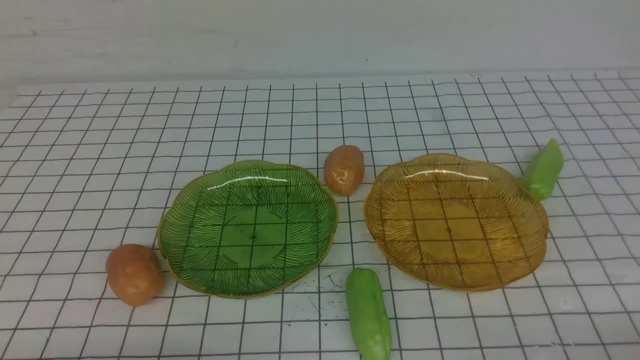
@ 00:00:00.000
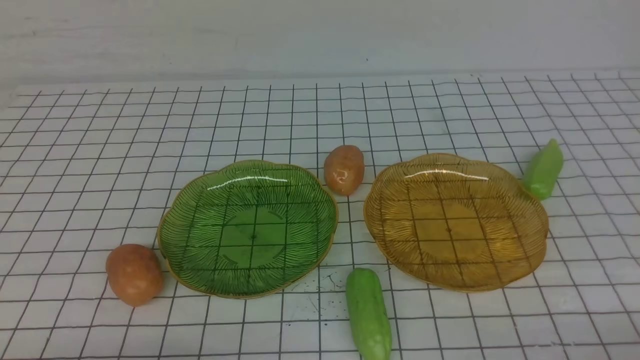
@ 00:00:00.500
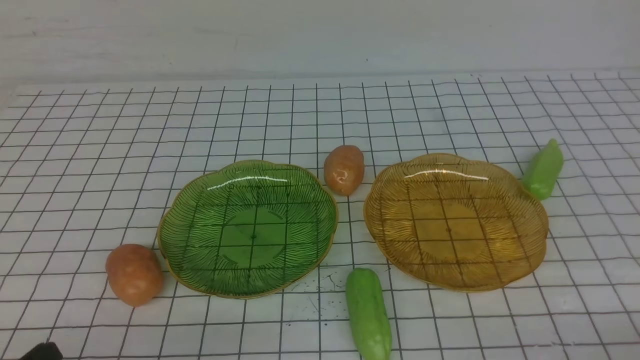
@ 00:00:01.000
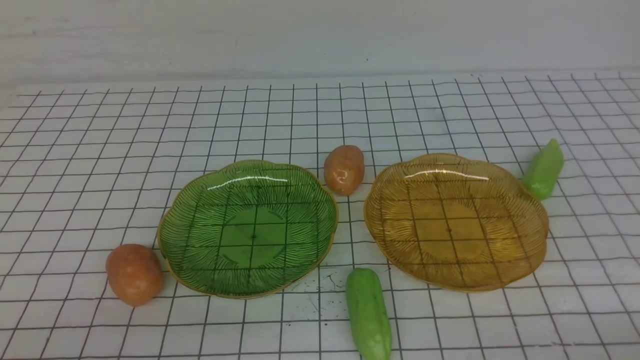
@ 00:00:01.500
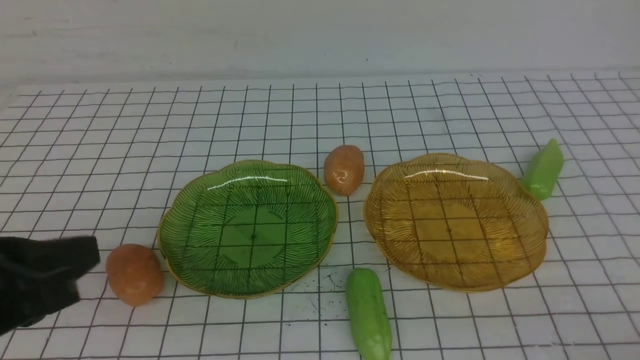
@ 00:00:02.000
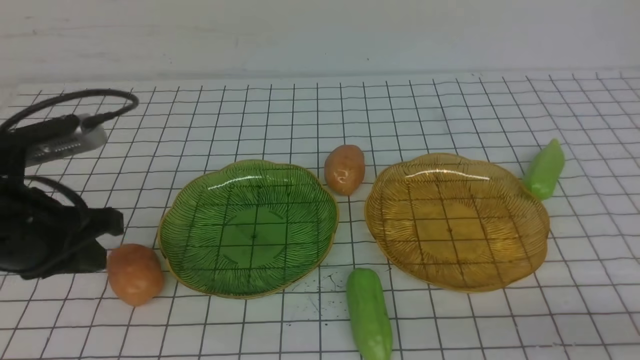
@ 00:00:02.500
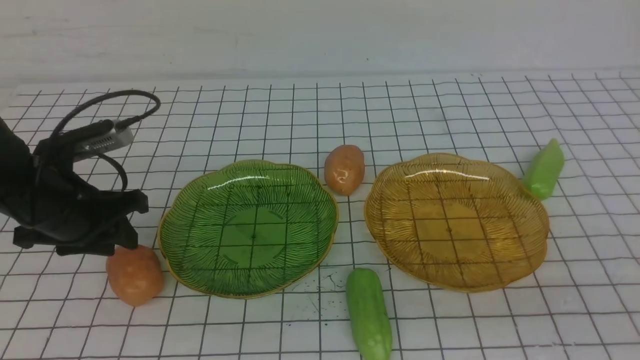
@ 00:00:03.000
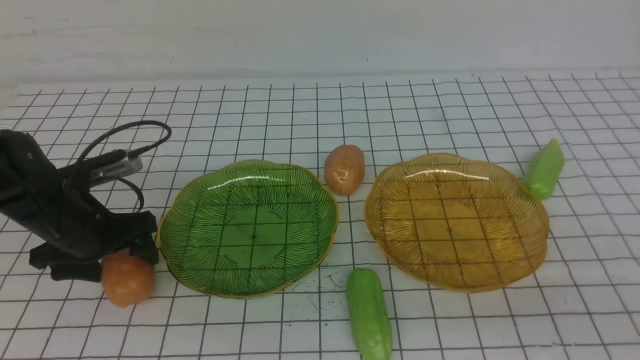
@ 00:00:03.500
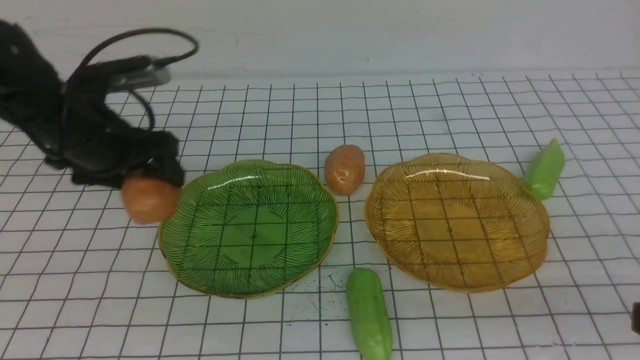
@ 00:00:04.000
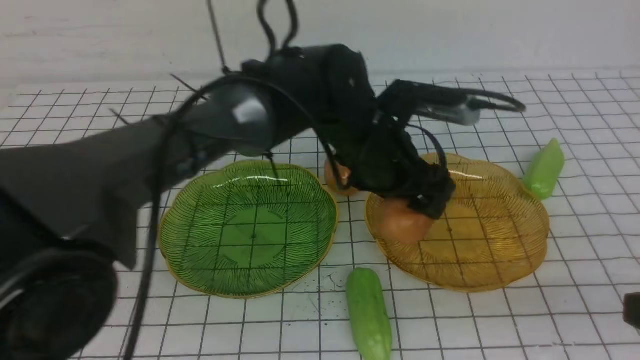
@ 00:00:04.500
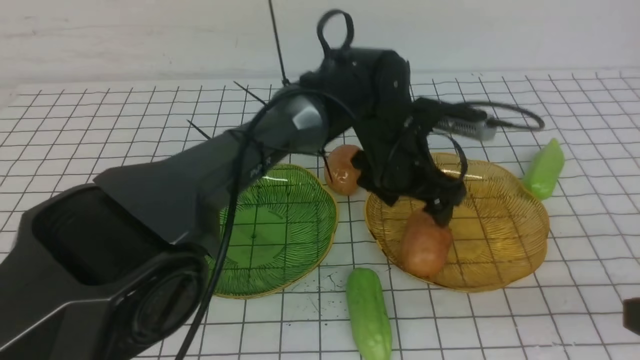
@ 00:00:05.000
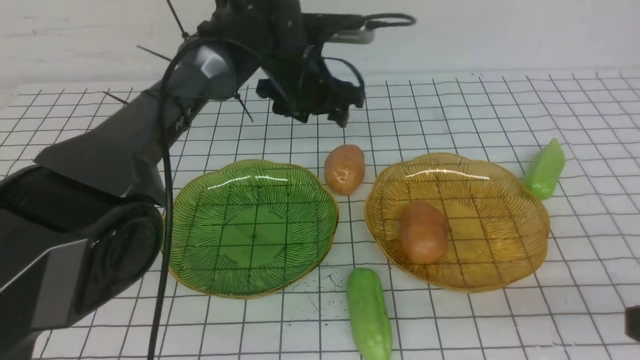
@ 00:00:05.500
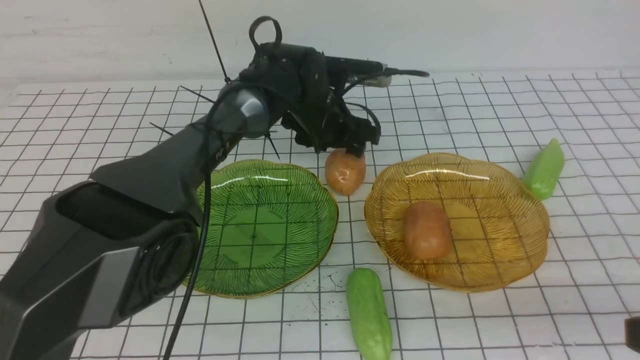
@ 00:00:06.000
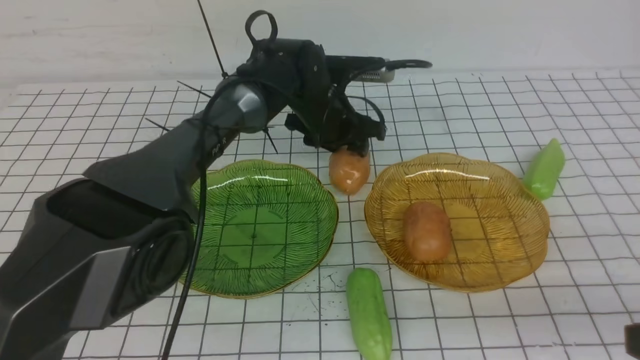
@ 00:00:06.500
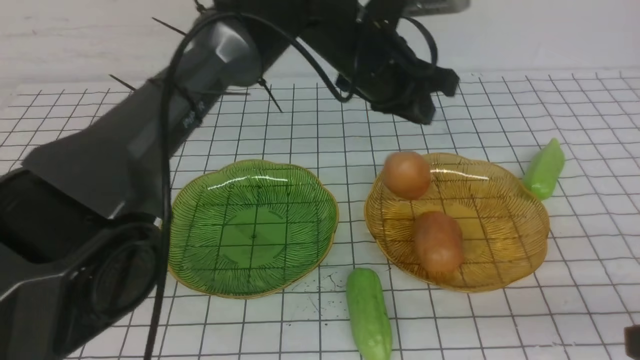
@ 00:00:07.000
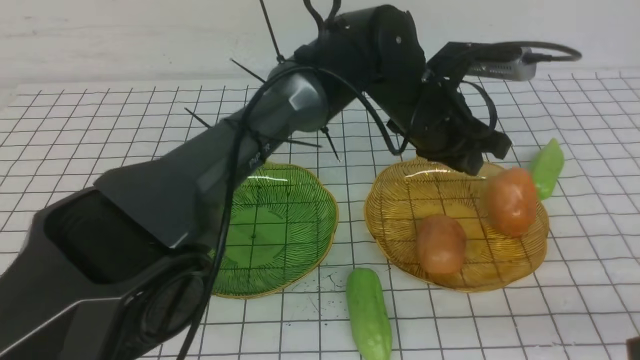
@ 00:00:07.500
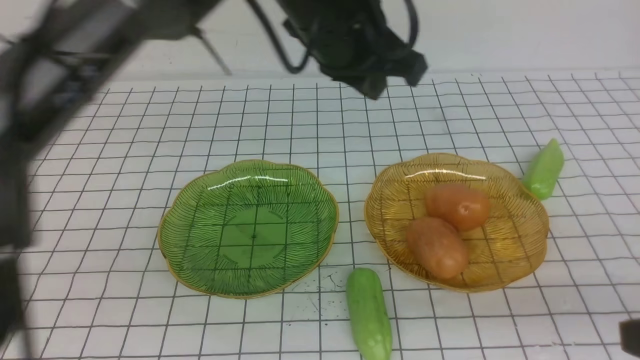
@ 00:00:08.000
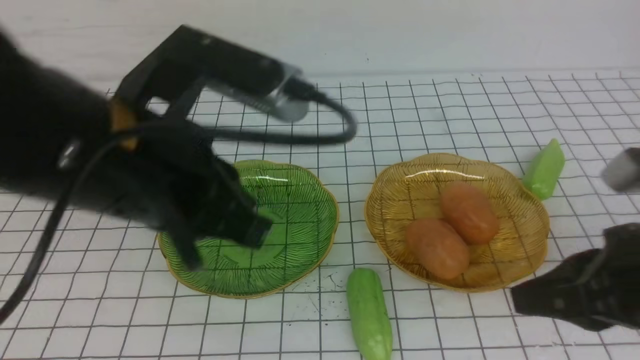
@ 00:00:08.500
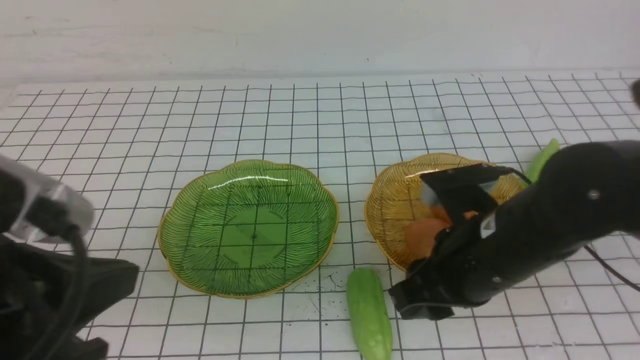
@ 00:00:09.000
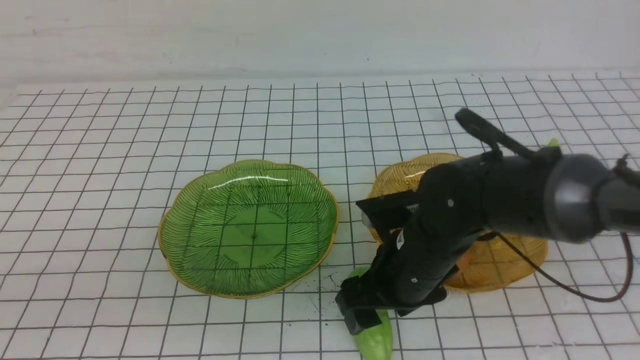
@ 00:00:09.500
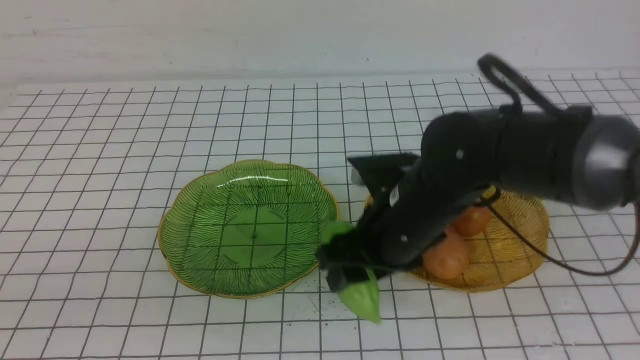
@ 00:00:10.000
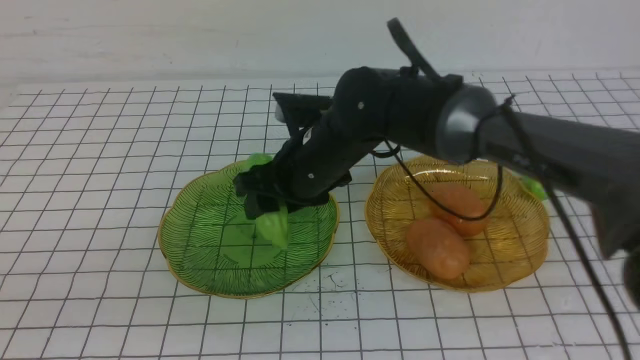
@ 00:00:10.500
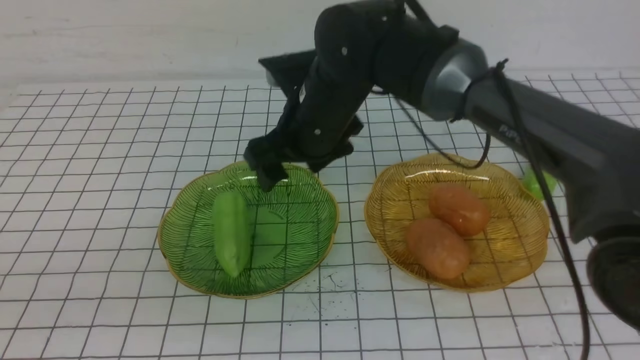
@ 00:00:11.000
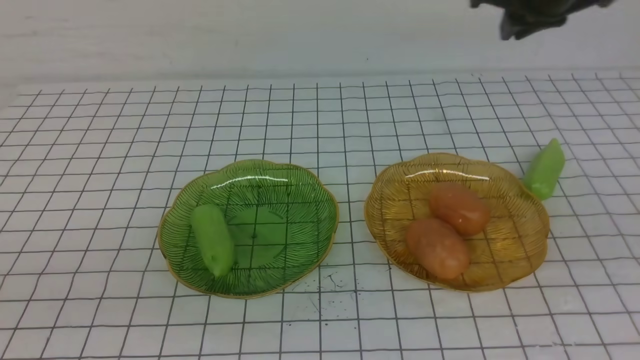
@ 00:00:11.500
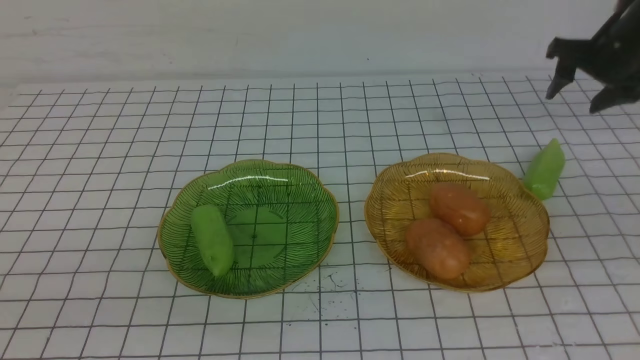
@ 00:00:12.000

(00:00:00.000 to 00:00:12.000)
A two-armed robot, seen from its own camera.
Step, 00:00:00.000 - 00:00:04.500: Grab a potato with your left arm and put it on the right plate.
Step, 00:00:05.500 - 00:00:07.000: Grab a potato with your left arm and put it on the right plate.
00:00:00.000 - 00:00:02.000: The left gripper heads upward and forward, covering about 15 cm.
00:00:02.000 - 00:00:04.000: The left gripper is displaced forward by approximately 25 cm, and opens up.
00:00:04.000 - 00:00:06.000: The left gripper shifts about 25 cm to the right and forward.
00:00:06.000 - 00:00:08.000: The left gripper is displaced upward and backward by approximately 25 cm, and closes up.
00:00:08.000 - 00:00:10.000: The right gripper goes roughly 30 cm to the left, forward and downward, and opens up; the left gripper heads backward and to the left, covering approximately 35 cm.
00:00:10.000 - 00:00:12.000: The right gripper is displaced to the right and forward by about 35 cm, and closes and opens again.

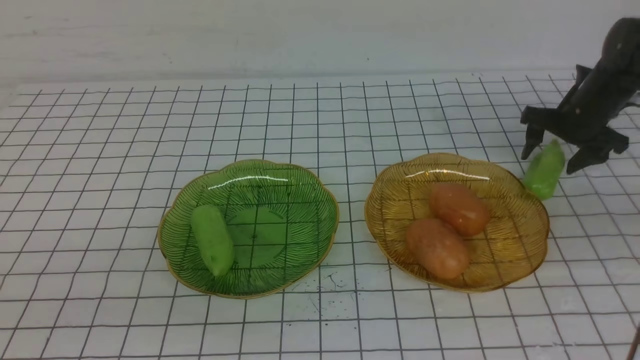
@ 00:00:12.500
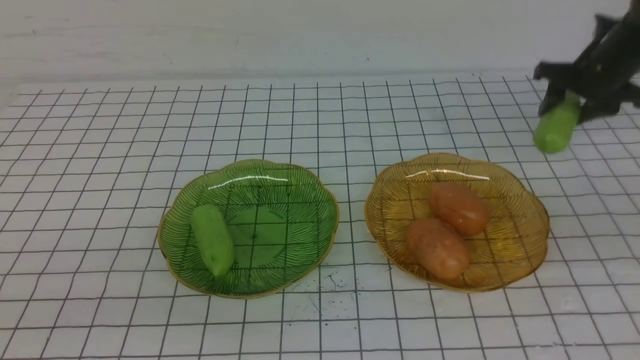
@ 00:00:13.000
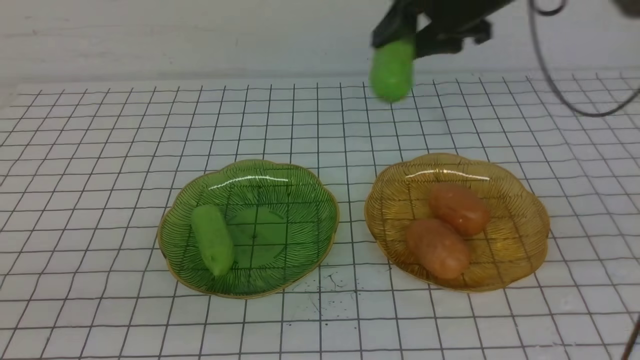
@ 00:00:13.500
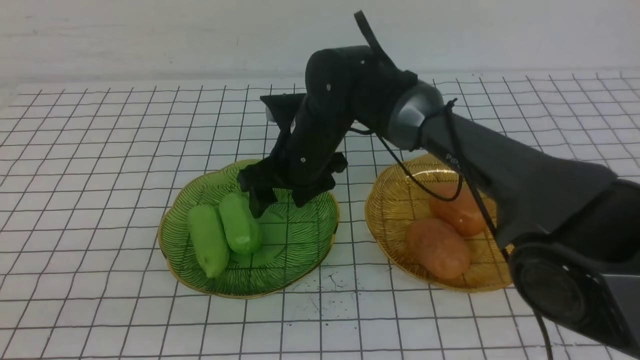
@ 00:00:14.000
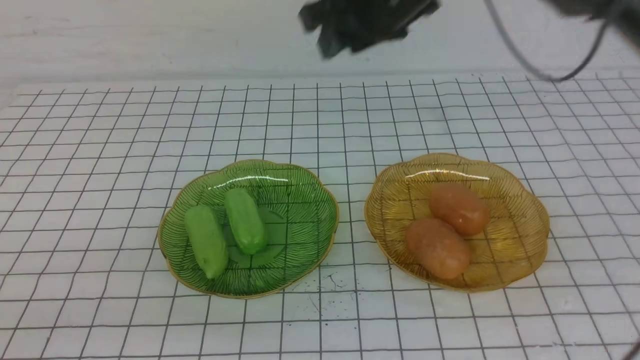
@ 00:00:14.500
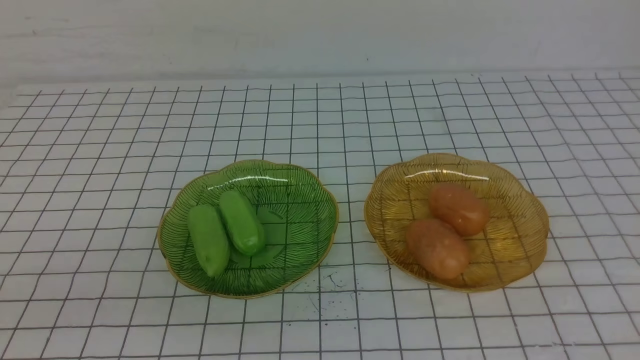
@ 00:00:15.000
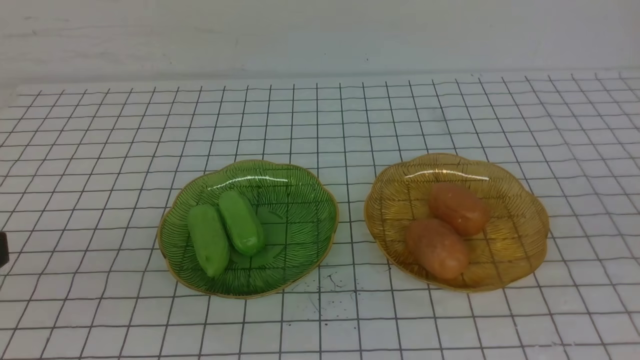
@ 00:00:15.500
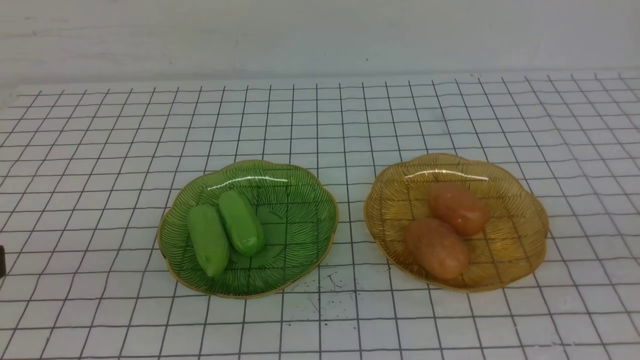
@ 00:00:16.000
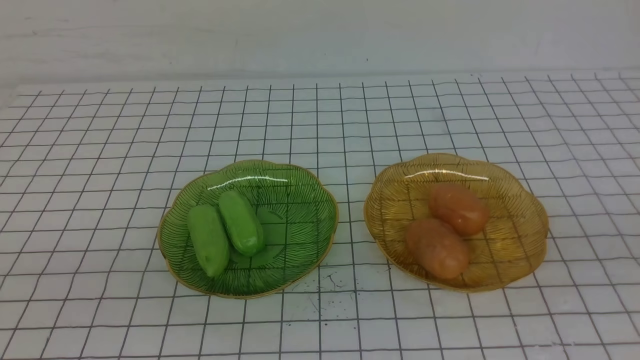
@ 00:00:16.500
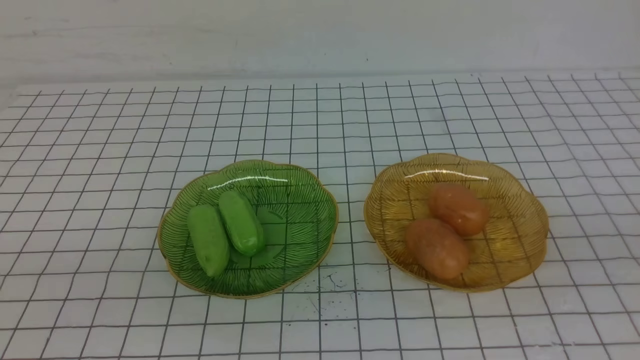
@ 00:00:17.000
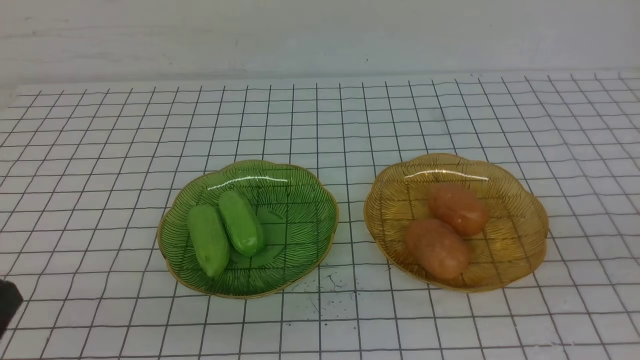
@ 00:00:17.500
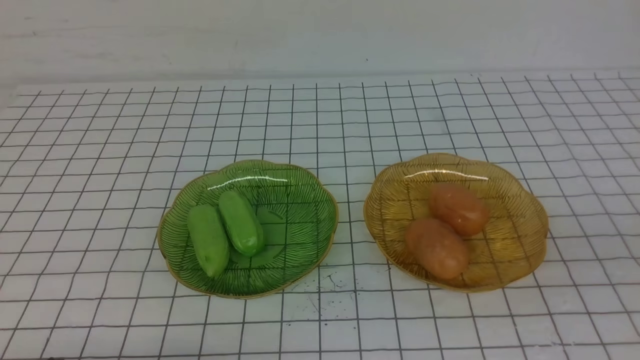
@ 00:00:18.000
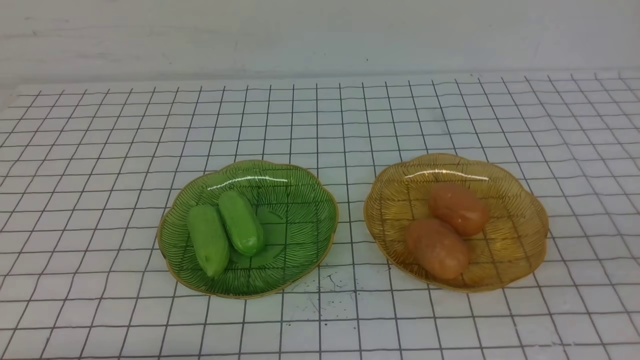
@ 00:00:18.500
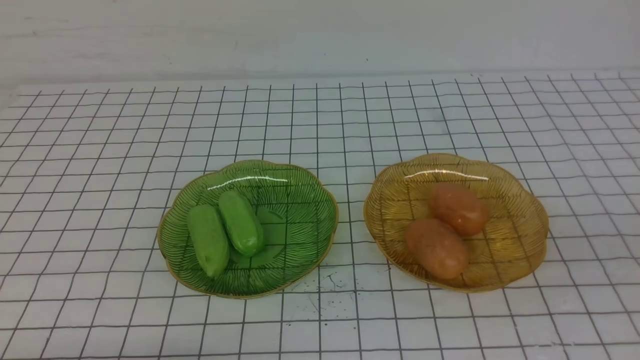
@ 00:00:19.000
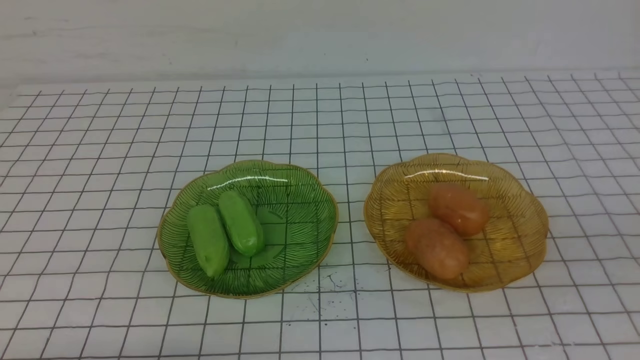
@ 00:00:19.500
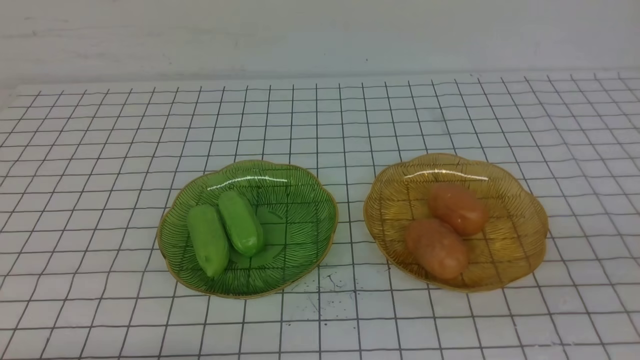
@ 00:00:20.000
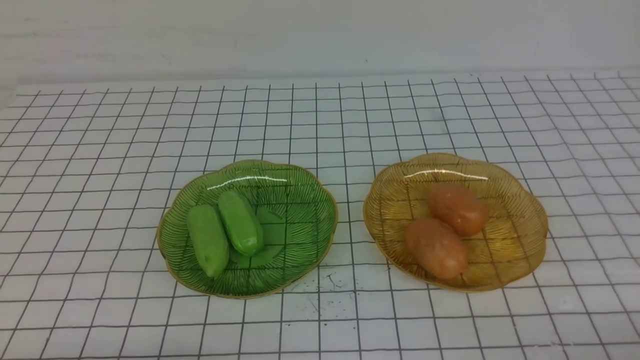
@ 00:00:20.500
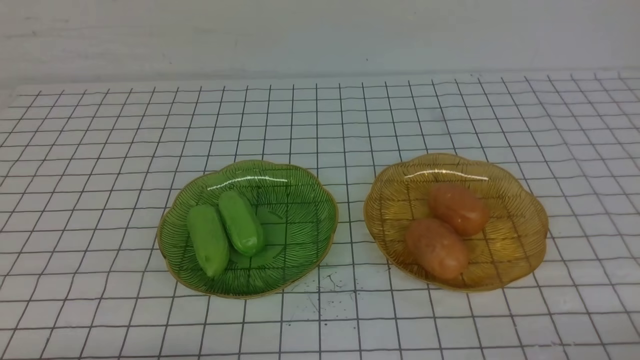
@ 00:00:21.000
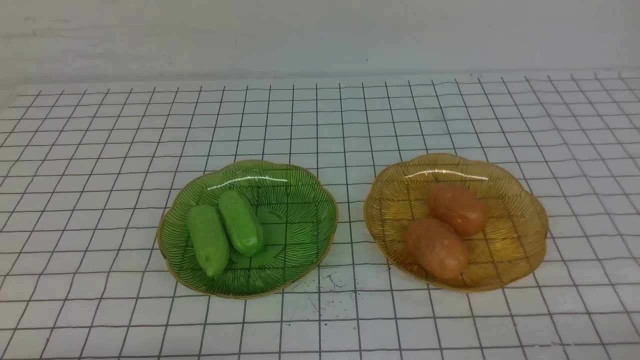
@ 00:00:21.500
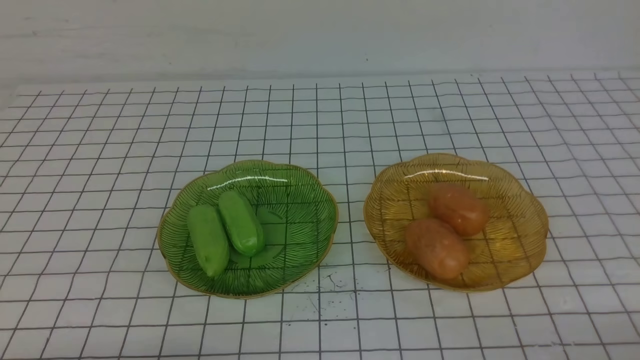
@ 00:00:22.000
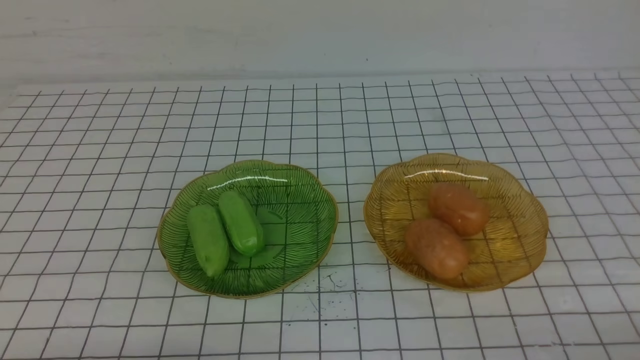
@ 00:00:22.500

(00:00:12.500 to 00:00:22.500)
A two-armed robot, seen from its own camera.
00:00:12.500 - 00:00:14.500: The right gripper heads to the left, upward and backward, covering some 40 cm, and closes its fingers.
00:00:14.500 - 00:00:16.500: The right gripper shifts about 40 cm backward and to the right, and closes its fingers.
00:00:20.500 - 00:00:22.500: Both grippers stay put.
